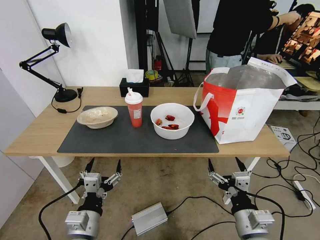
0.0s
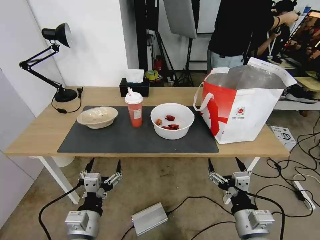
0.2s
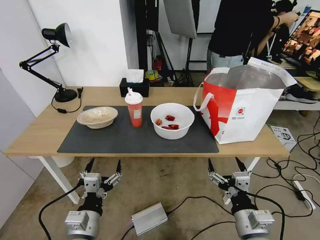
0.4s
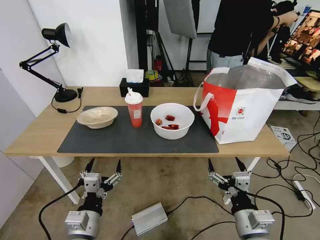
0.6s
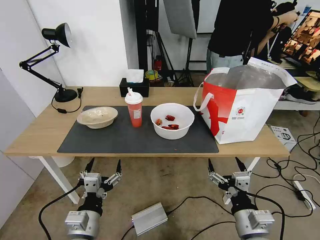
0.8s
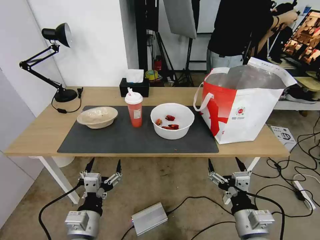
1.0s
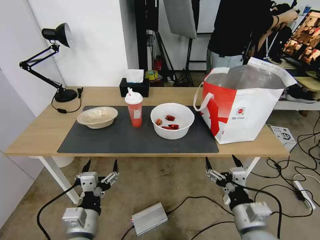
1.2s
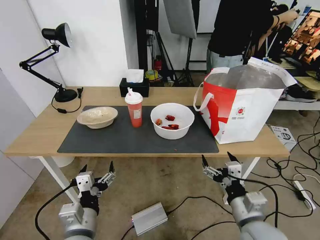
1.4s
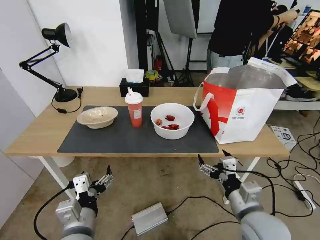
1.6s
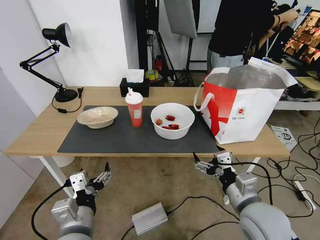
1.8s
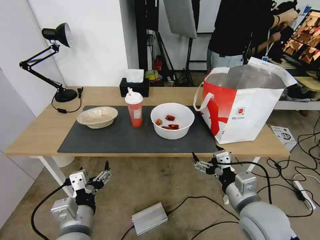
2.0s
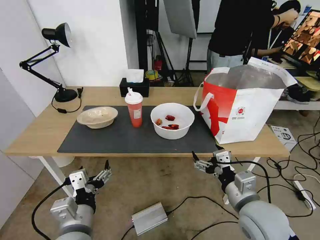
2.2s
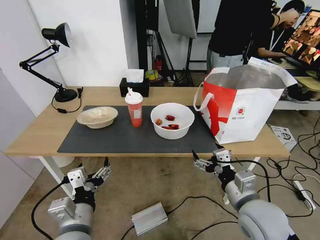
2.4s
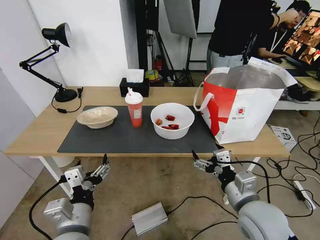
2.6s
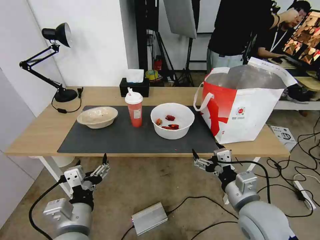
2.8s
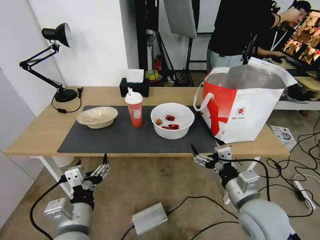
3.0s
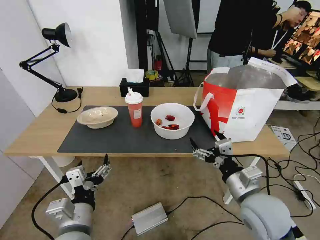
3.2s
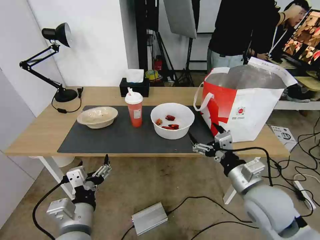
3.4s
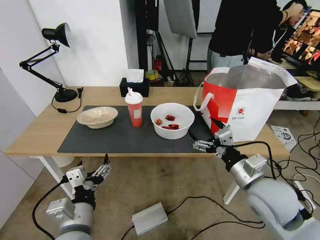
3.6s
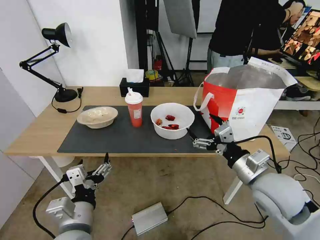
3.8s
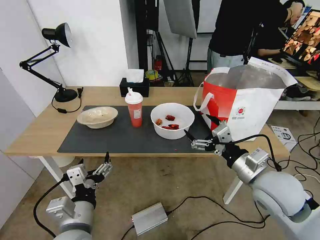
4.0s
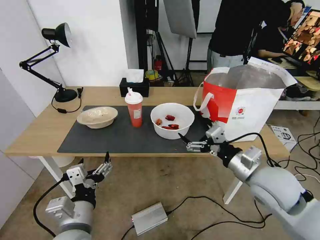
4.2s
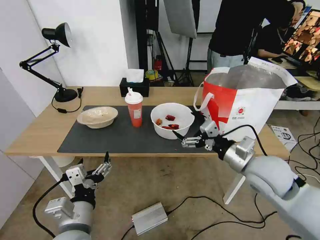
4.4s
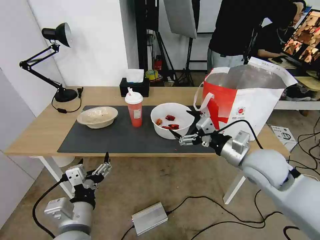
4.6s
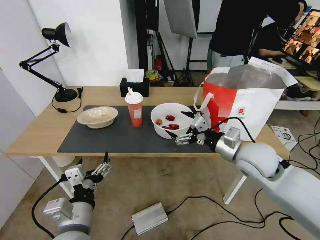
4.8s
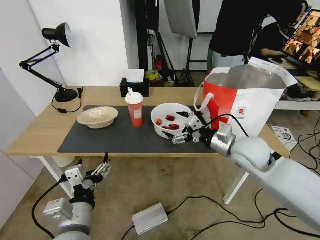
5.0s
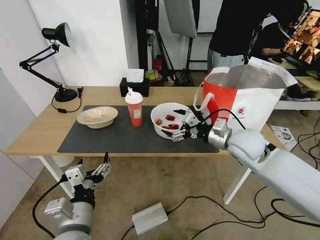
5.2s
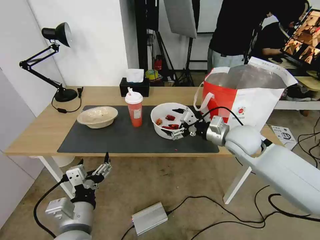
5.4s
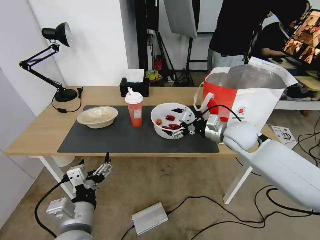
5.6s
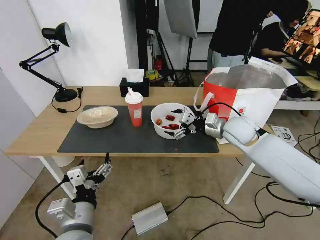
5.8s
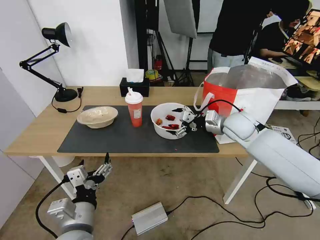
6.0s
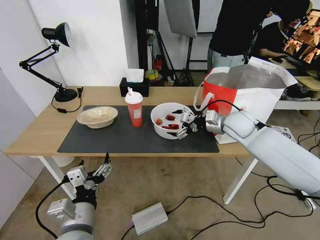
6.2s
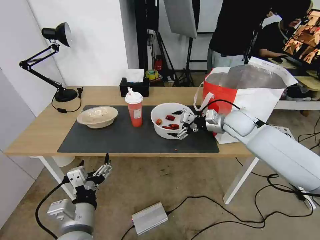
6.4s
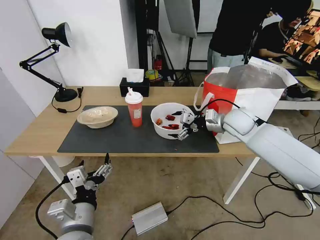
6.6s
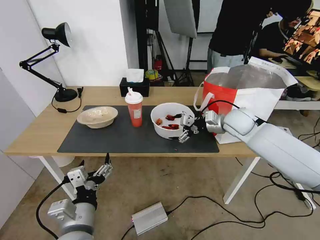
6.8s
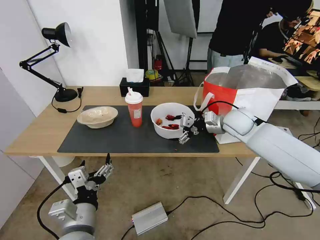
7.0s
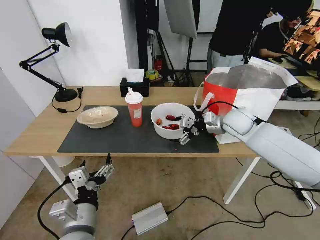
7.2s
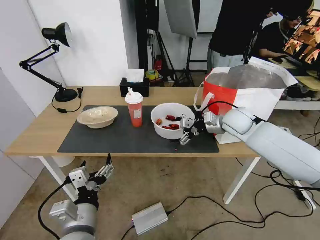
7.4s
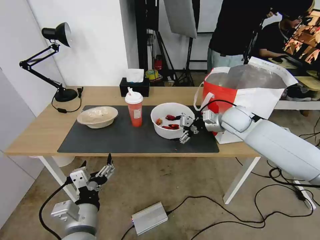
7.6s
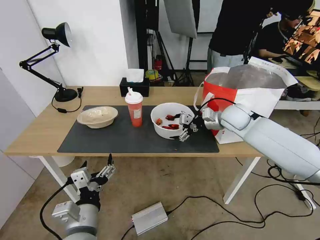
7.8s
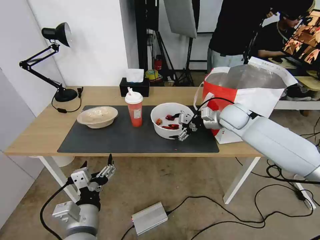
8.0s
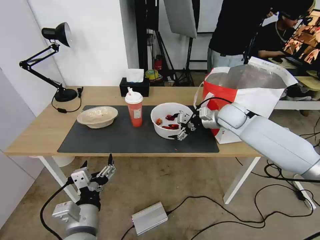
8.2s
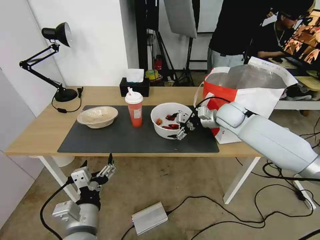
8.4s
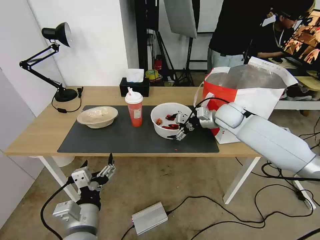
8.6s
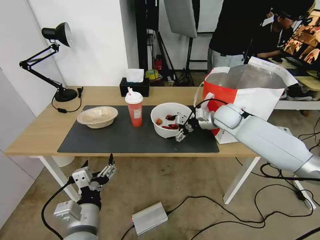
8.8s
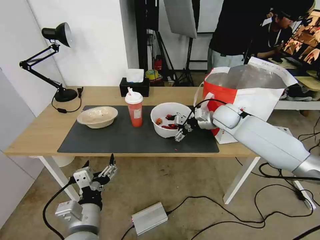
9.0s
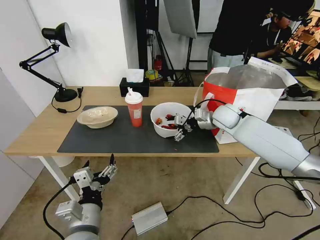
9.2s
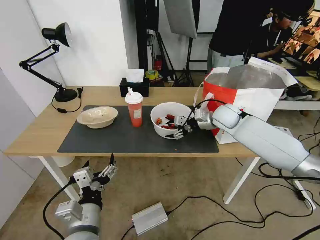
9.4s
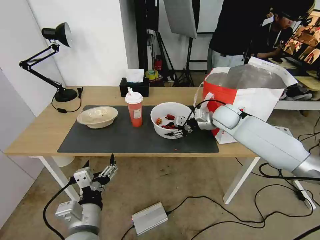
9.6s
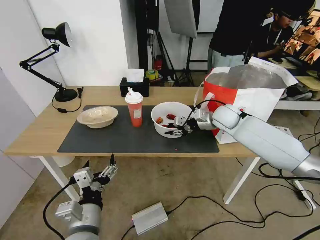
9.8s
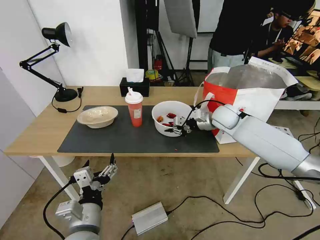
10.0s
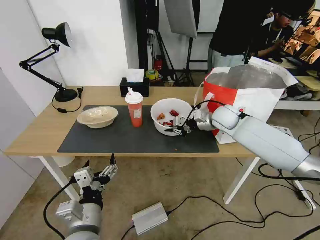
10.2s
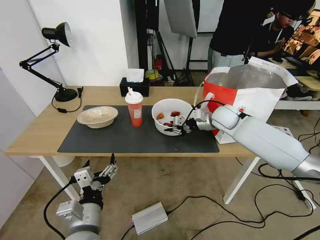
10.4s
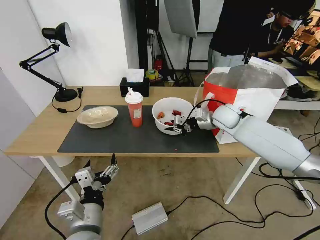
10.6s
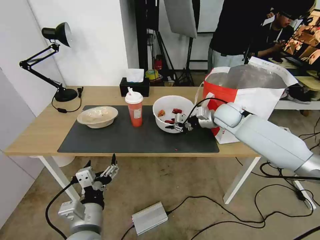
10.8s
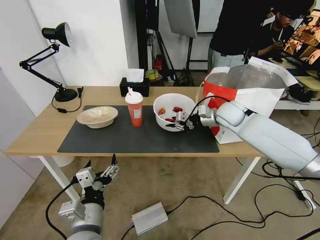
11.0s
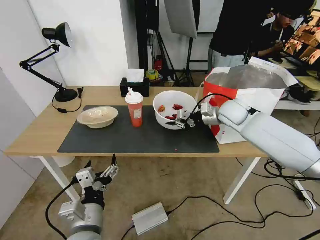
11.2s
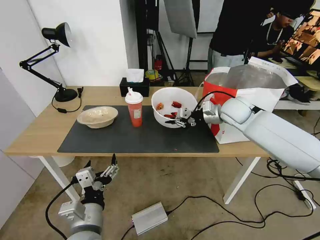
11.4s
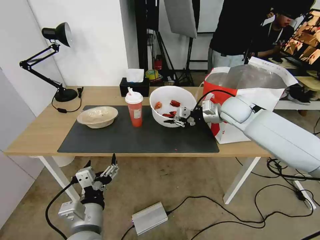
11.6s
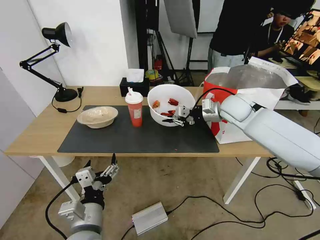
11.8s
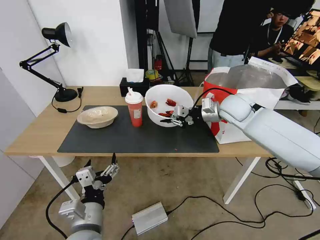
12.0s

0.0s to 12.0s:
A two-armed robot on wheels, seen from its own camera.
Task of the whole recording: Pick up the trash from the table and place it into the takeout bag.
1.6s to 3.0s: The grippers stay close to where they were, moving slightly.
3.0s to 4.4s: The right gripper shifts about 10 cm forward and upward.
4.4s to 6.0s: The right gripper goes roughly 20 cm forward.
6.0s to 7.6s: The grippers make only small movements.
7.6s to 9.0s: There are only small adjustments of the grippers.
9.0s to 10.4s: The right gripper closes up.
10.4s to 12.0s: The right gripper heads upward, covering some 5 cm.

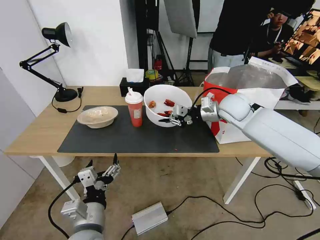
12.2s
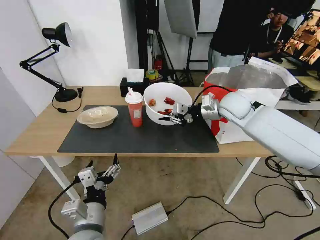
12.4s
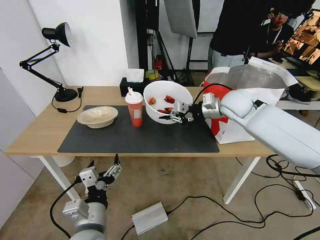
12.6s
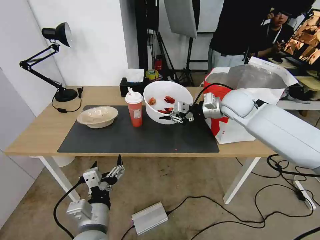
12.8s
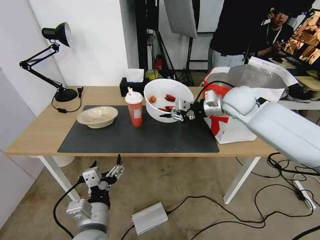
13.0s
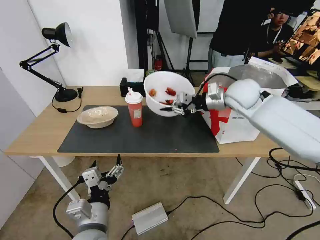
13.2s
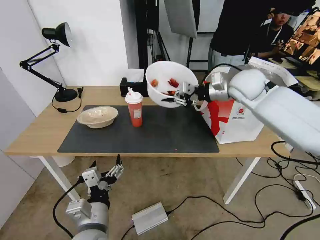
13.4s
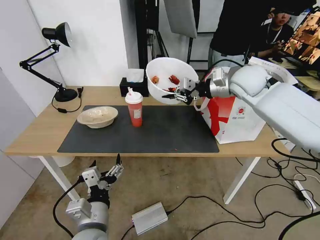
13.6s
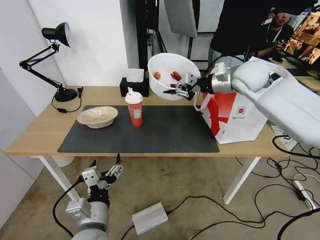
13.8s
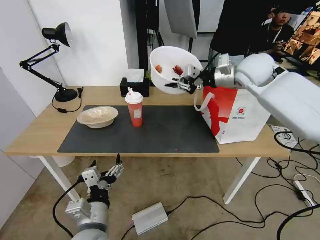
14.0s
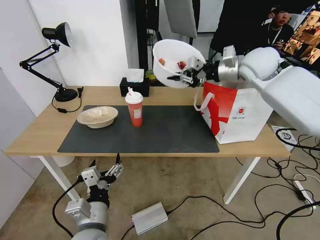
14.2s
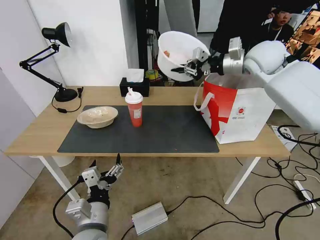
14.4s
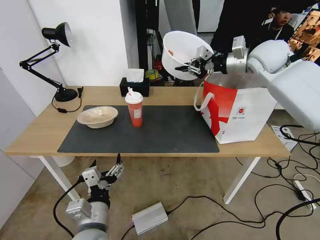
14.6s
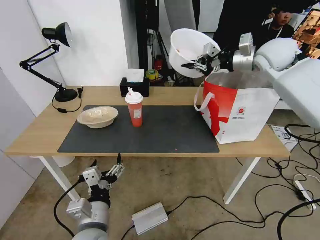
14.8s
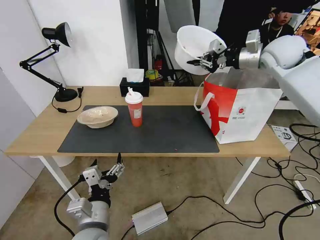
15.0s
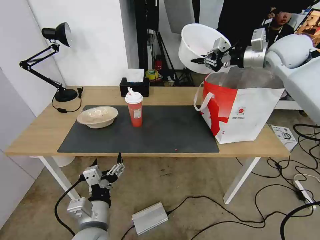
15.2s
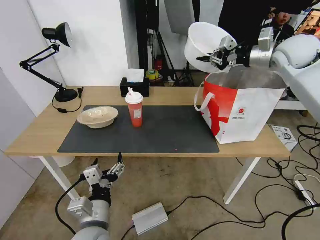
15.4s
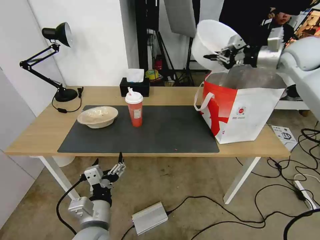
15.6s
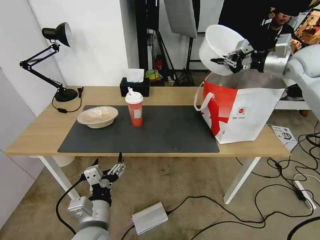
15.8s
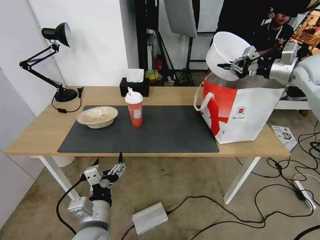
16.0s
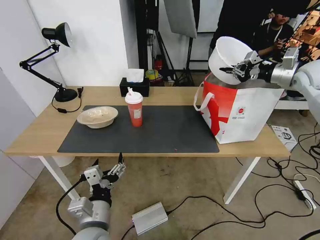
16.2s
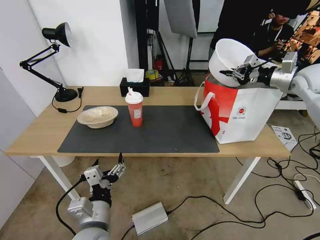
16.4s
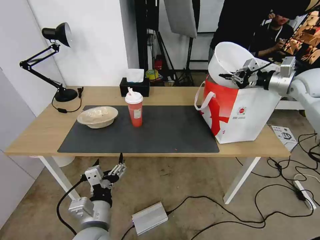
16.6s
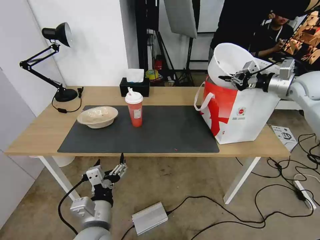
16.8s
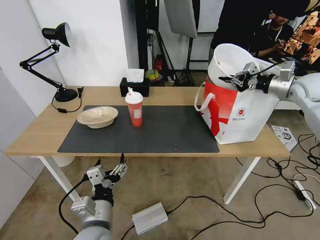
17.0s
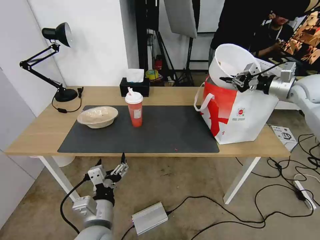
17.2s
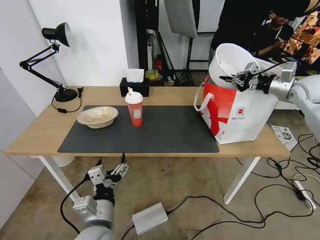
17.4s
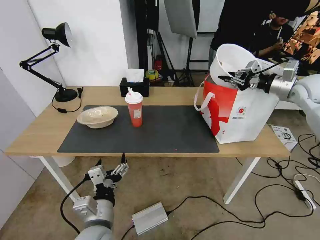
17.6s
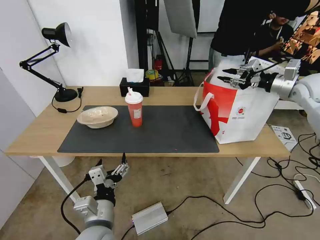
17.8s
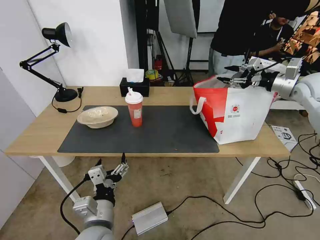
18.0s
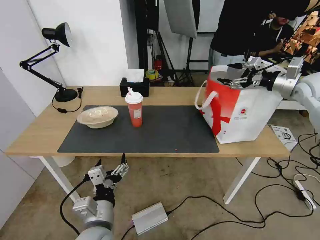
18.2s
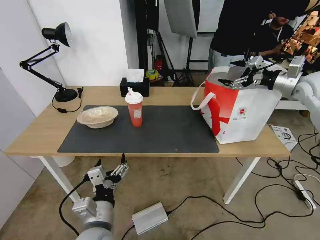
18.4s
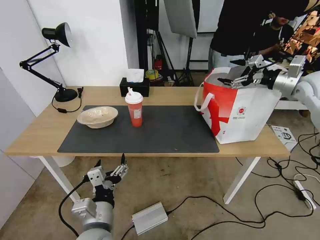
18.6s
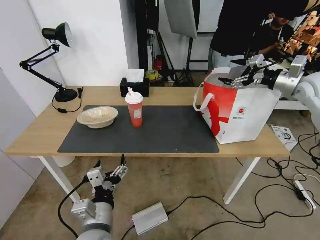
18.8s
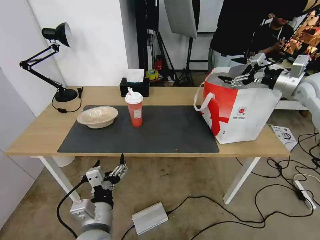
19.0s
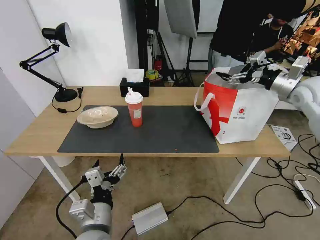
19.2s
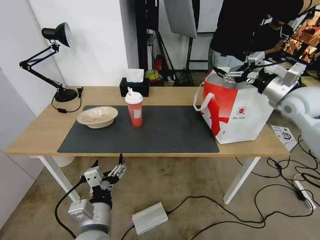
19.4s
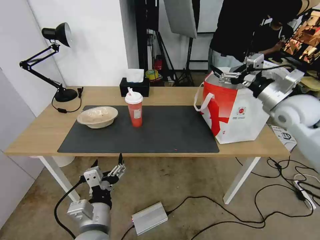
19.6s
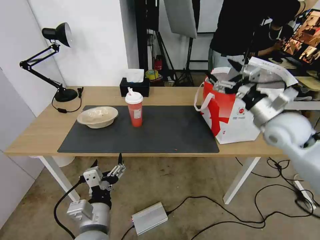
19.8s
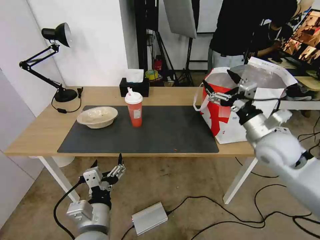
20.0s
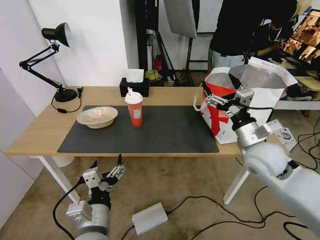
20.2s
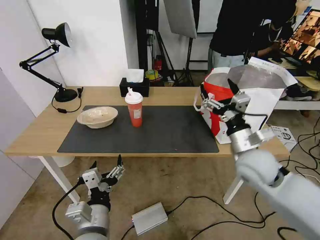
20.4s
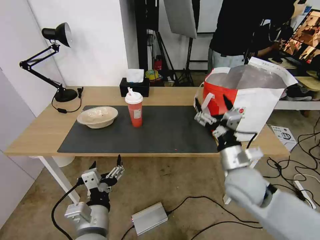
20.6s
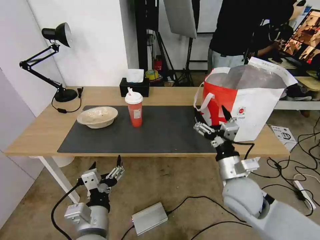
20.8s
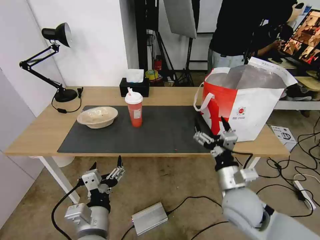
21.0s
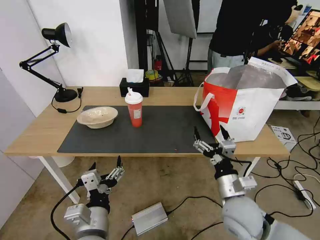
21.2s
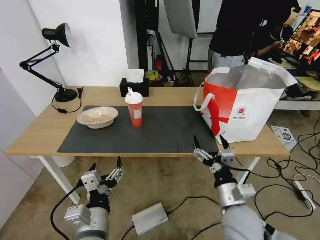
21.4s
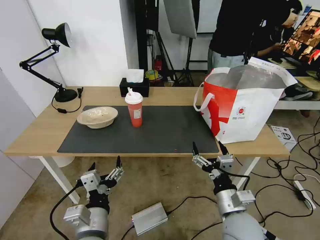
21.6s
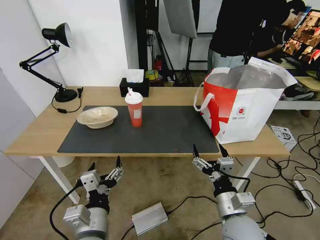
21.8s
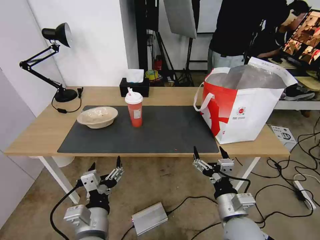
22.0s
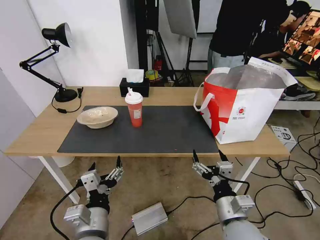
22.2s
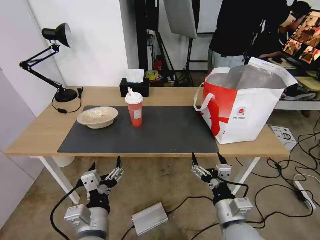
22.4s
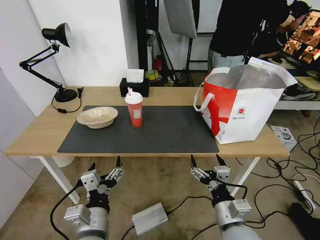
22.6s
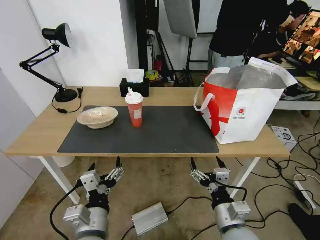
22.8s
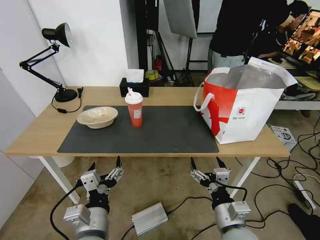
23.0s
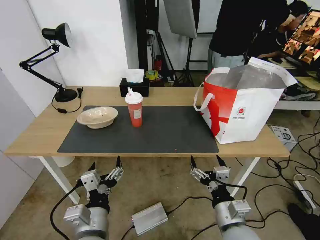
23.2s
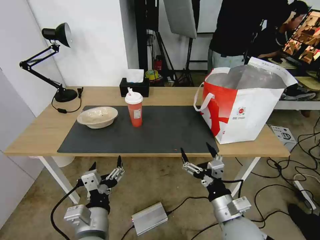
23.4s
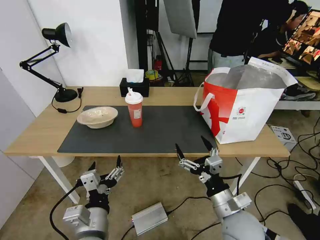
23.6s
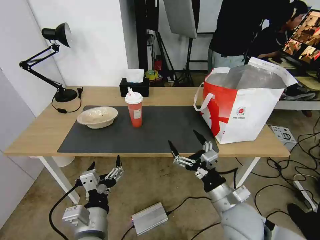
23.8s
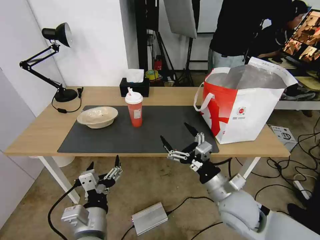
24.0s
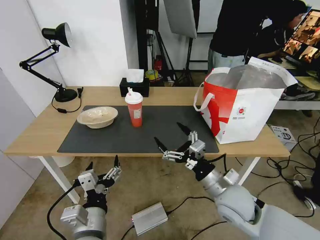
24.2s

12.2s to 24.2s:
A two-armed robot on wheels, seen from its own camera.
Task of the whole recording: Pick up the trash from the table and place it into the takeout bag.
12.2s to 13.8s: The right gripper moves upward, some 10 cm.
13.8s to 15.2s: The right gripper goes roughly 10 cm to the right and upward.
15.2s to 16.6s: The right gripper is displaced to the right and downward by roughly 15 cm.
16.6s to 18.2s: The right gripper opens its fingers.
18.2s to 19.8s: The right gripper moves to the left, backward and downward, about 20 cm.
19.8s to 21.2s: The right gripper is displaced backward, downward and to the left by roughly 25 cm.
21.2s to 22.6s: The right gripper is displaced backward by roughly 5 cm.
22.6s to 24.2s: The right gripper goes some 10 cm forward.
